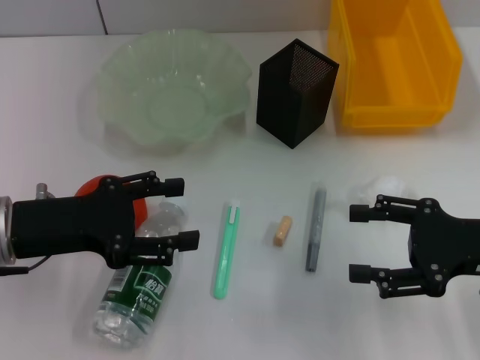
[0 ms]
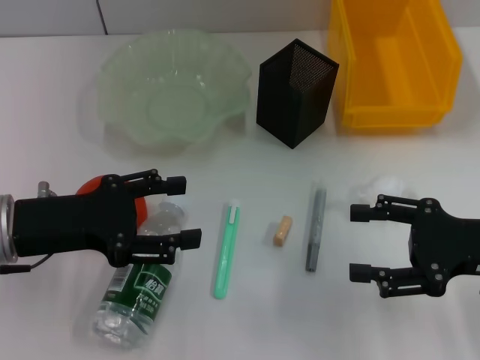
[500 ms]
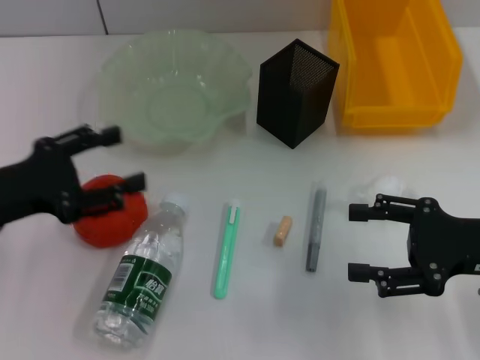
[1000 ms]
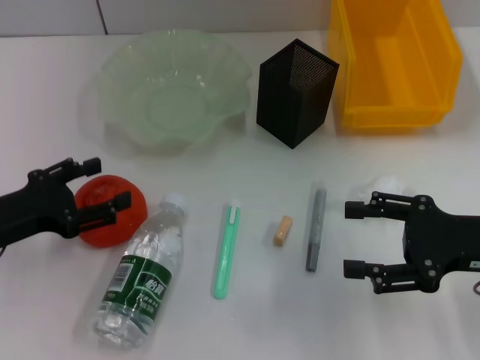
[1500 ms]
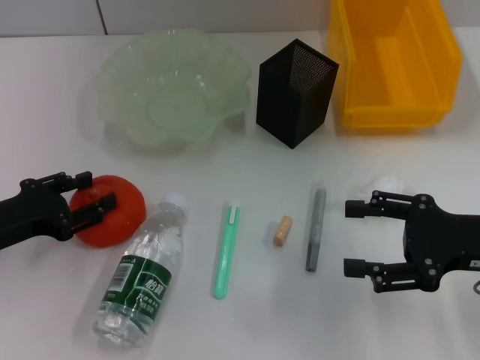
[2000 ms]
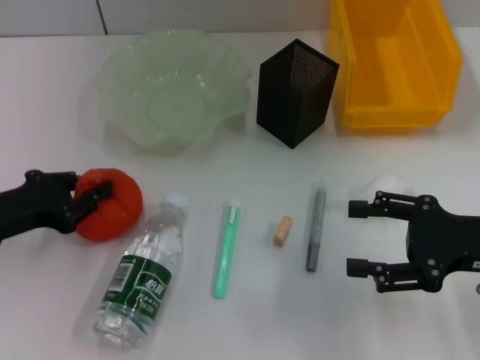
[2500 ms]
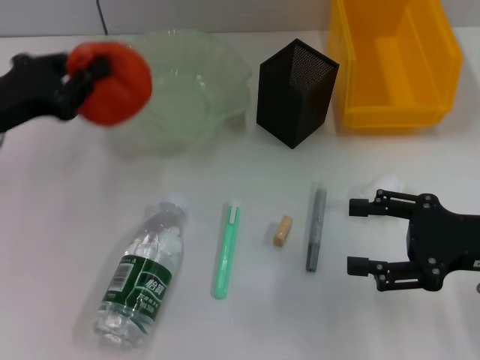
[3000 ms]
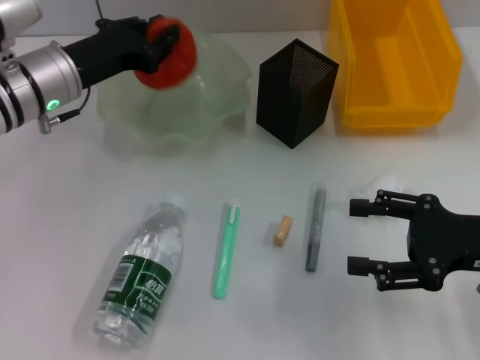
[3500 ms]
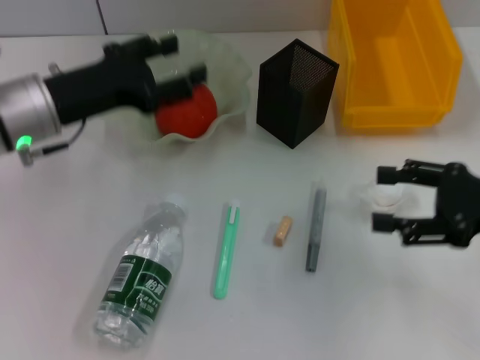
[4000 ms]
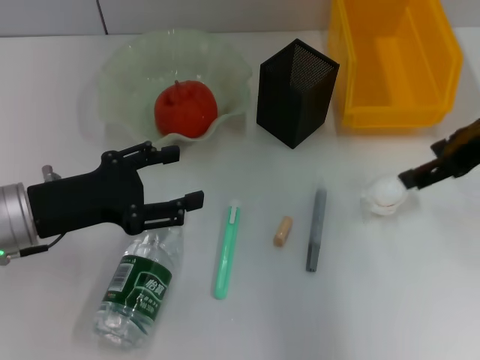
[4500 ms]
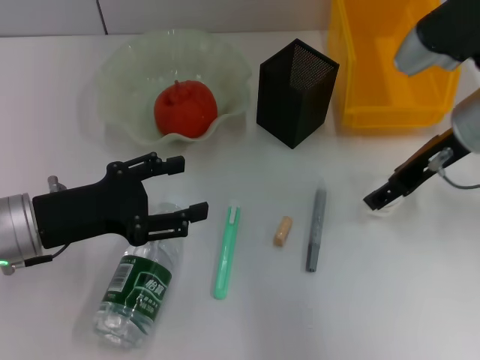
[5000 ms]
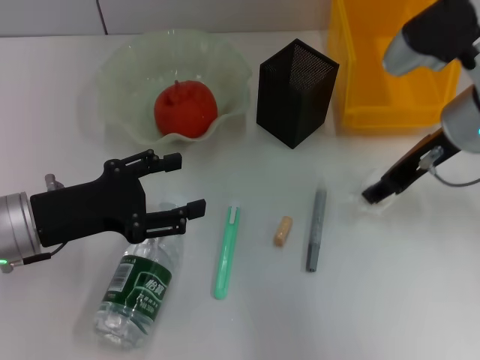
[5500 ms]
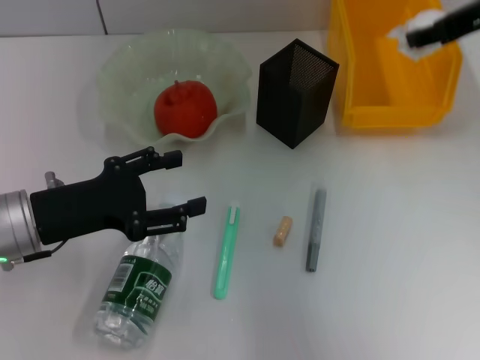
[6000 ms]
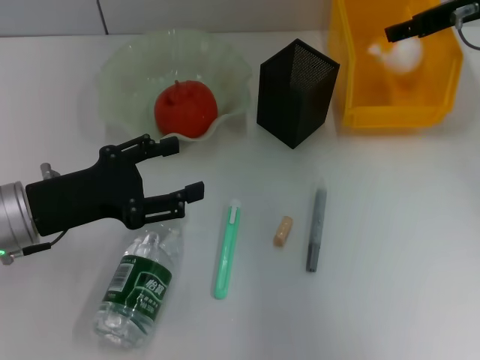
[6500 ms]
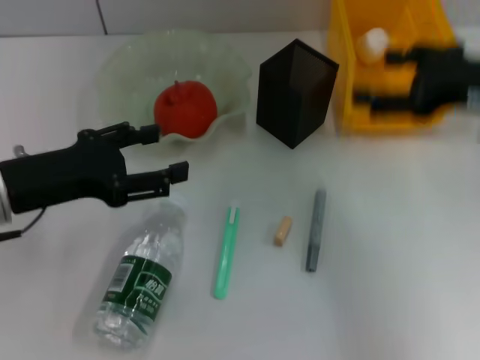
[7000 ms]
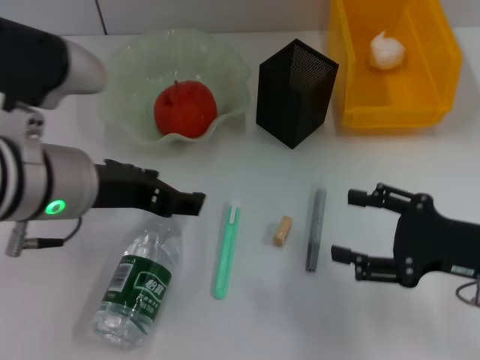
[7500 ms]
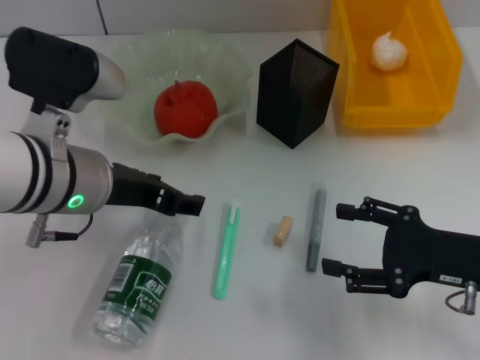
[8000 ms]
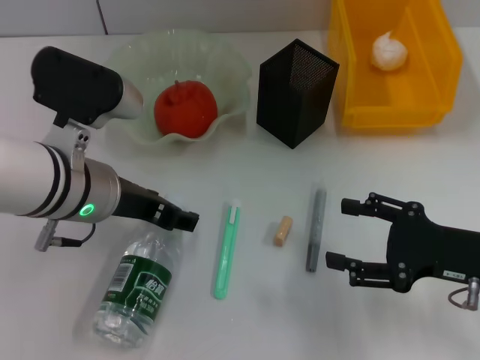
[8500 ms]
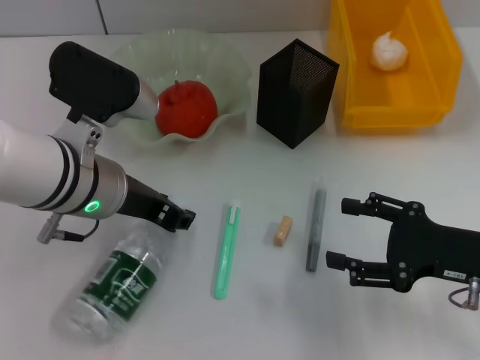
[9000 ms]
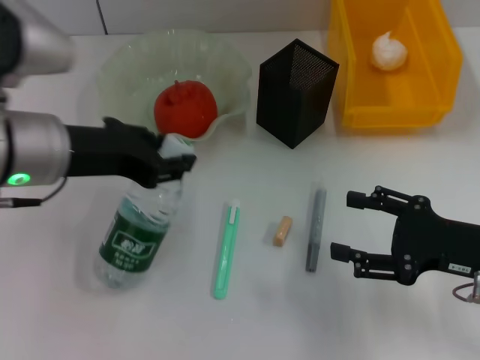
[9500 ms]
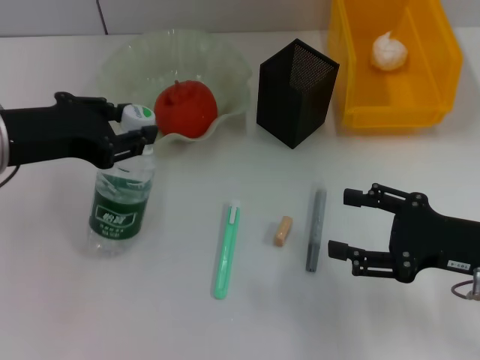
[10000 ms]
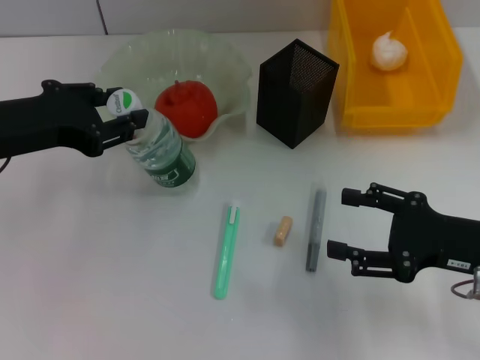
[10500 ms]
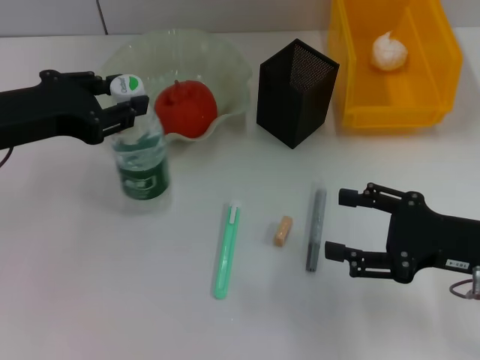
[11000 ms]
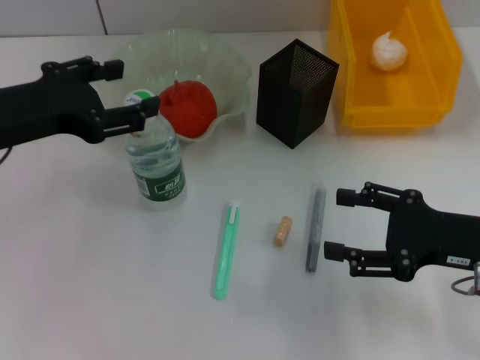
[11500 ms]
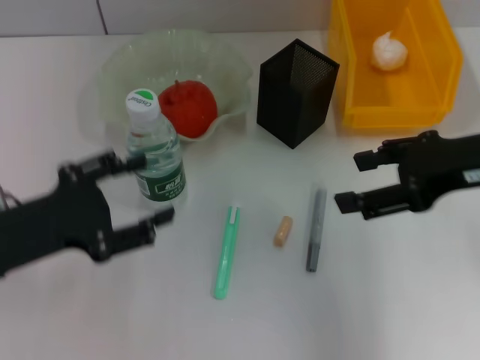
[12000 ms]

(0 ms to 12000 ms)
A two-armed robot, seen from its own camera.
Step, 0 ms - 2000 ms: Grab the orange with the left hand.
Step, 2500 ms - 3500 ms: Place the orange into the fruit bowl with the left hand.
Step, 4000 ms - 4500 ms: Grab the paper ball with the right hand.
Step, 5000 ms - 6500 ms: Place the paper ball into the trash can with the right hand.
Step, 7000 ms - 8500 ms: Grab the water bottle with the left hand.
Step, 9000 ms - 11000 ms: Place the water bottle on the table with the left hand.
0 ms - 2000 ms: The left gripper shifts about 5 cm to the left.
2000 ms - 4000 ms: The left gripper is displaced forward, to the right and upward by some 15 cm, and closes and opens again.
4000 ms - 6000 ms: The right gripper moves forward and upward, about 20 cm. The left gripper heads backward, covering about 10 cm.
6000 ms - 8000 ms: The right gripper moves downward and backward, about 25 cm, and opens. The left gripper is displaced to the right and upward by approximately 10 cm.
8000 ms - 10000 ms: The left gripper is displaced to the left by about 10 cm, and closes its fingers.
10000 ms - 12000 ms: The right gripper shifts approximately 15 cm upward. Meanwhile the left gripper travels downward and backward by about 10 cm, and opens up.

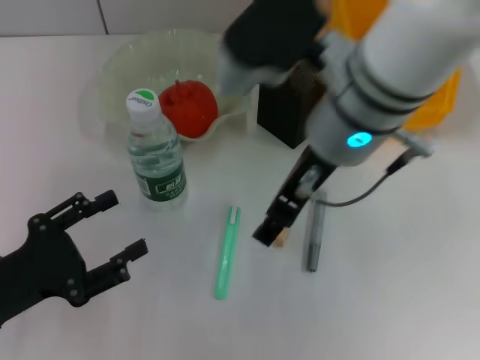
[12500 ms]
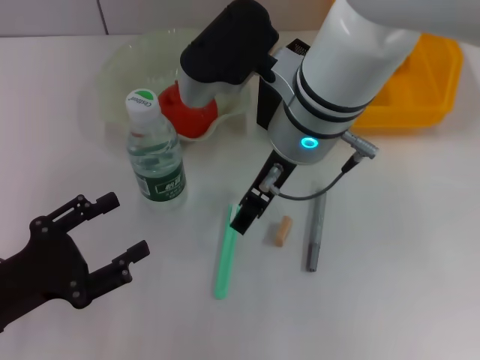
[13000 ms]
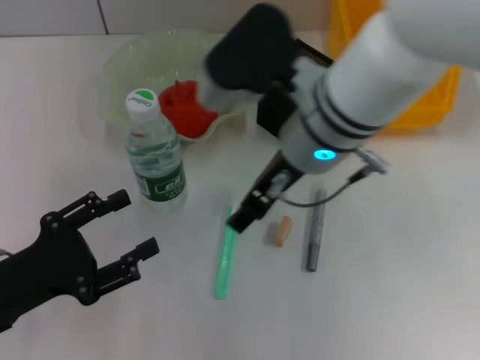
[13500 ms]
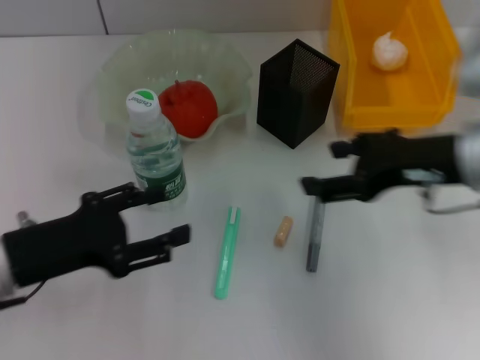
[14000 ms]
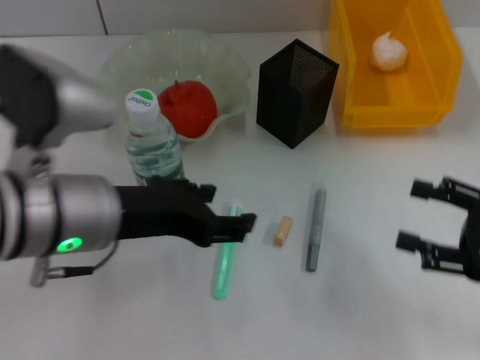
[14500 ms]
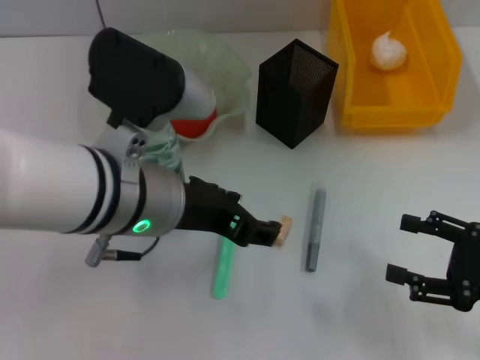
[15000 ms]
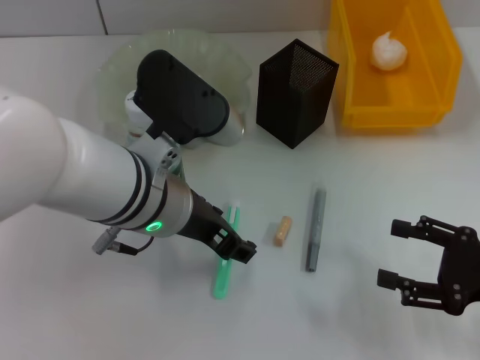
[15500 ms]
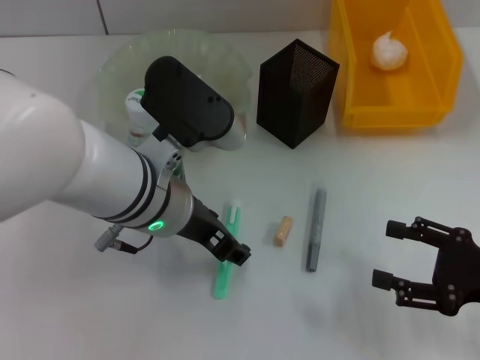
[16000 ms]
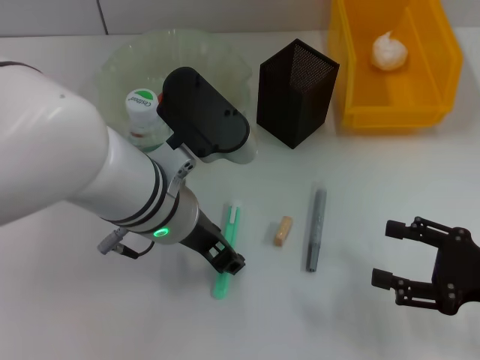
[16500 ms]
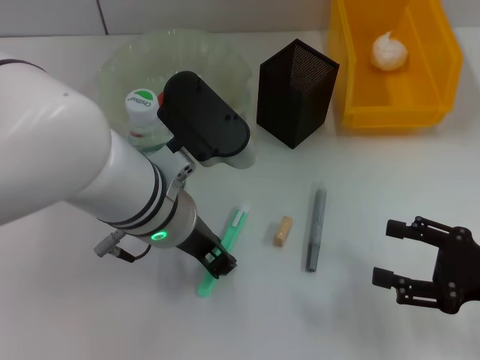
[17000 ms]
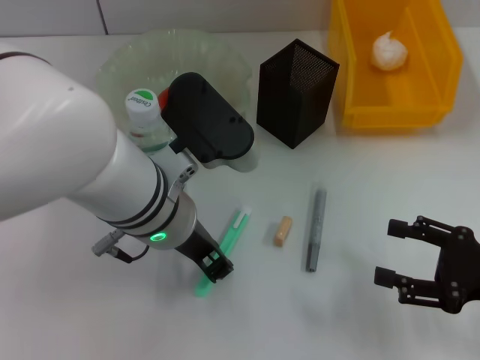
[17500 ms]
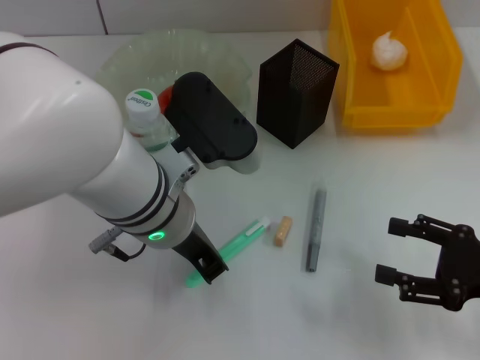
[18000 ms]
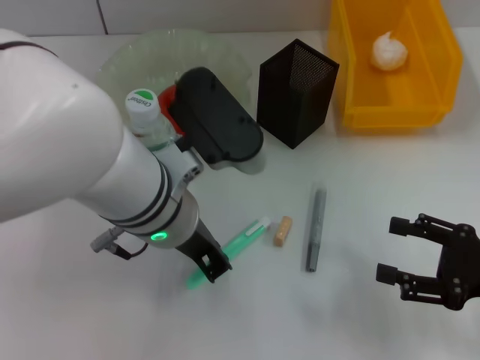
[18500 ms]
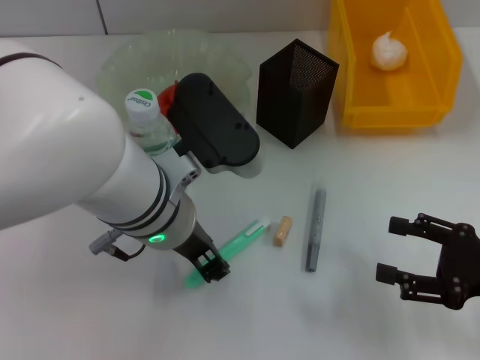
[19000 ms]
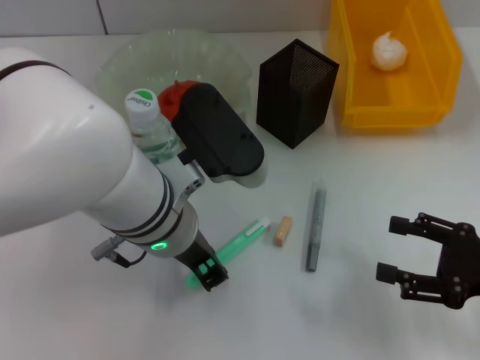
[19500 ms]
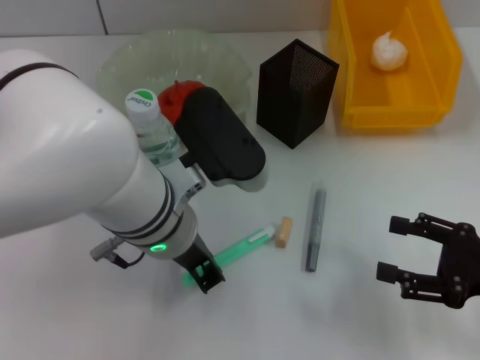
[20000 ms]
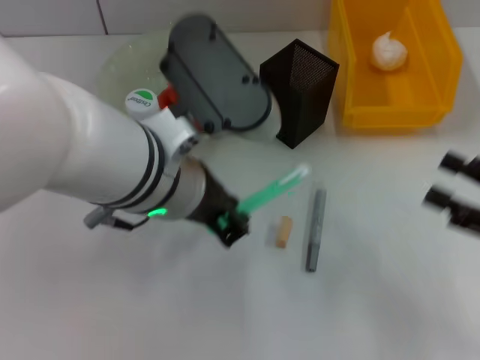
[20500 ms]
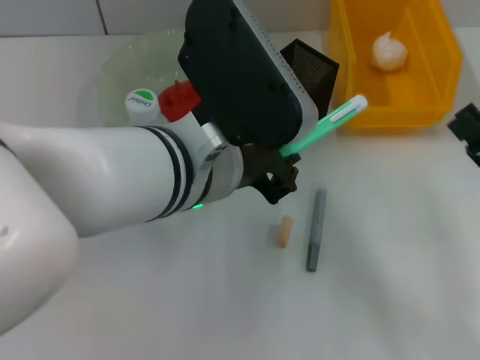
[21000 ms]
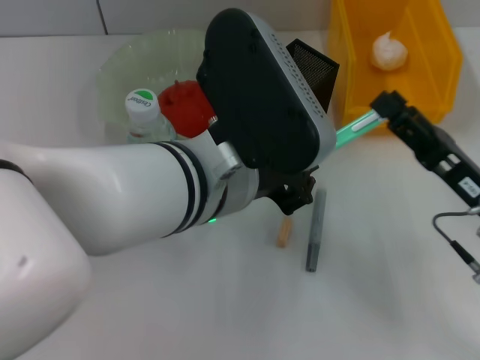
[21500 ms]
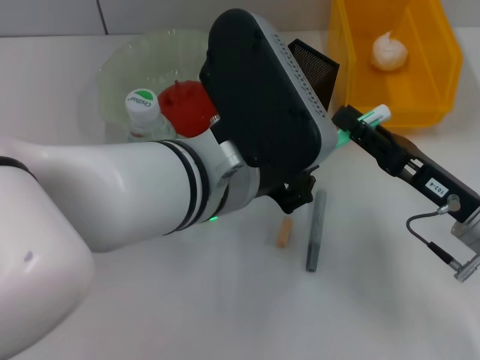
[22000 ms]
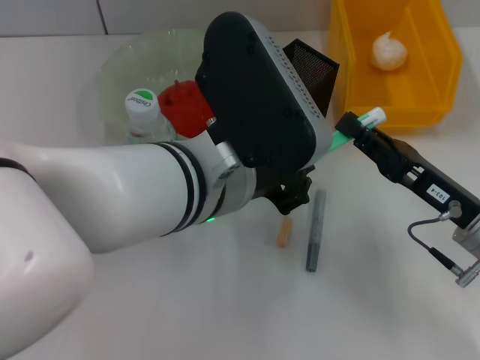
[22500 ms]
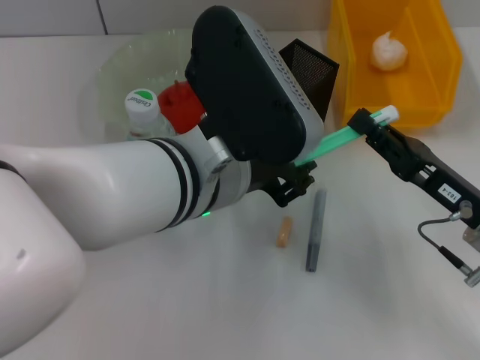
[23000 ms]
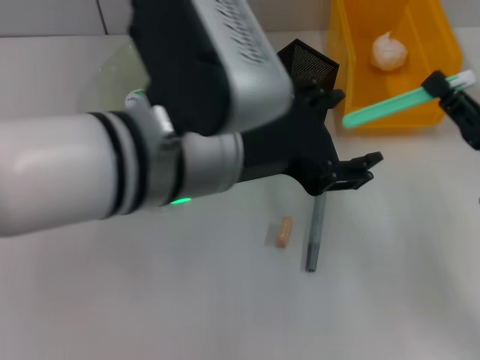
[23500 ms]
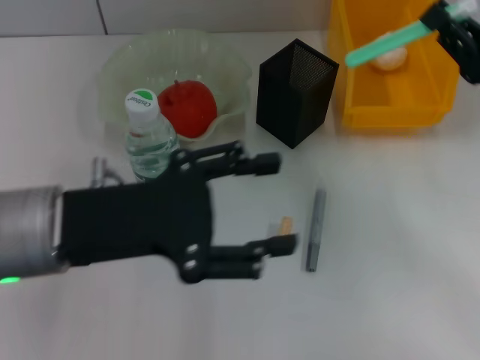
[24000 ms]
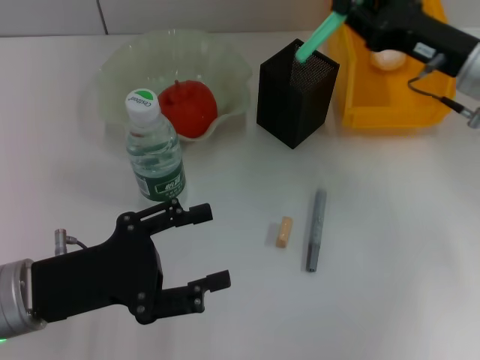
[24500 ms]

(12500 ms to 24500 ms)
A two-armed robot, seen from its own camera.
Step, 12500 ms - 16500 ms: Grab the blue utility knife with the left hand.
Step, 17000 ms - 22500 ms: Pass the blue utility knife from the left hand to the right hand.
12500 ms - 14500 ms: The right gripper is displaced to the right and downward by about 30 cm, while the left gripper moves to the right, upward and forward, approximately 20 cm.
14500 ms - 16500 ms: The left gripper goes about 5 cm to the right.
16500 ms - 18500 ms: The left gripper closes.
18500 ms - 20500 ms: The left gripper is displaced upward by approximately 5 cm.
20500 ms - 22500 ms: The right gripper shifts approximately 10 cm to the left, and closes up.
22500 ms - 24500 ms: The right gripper heads forward and upward, covering roughly 15 cm, while the left gripper moves to the left and downward, roughly 20 cm, and opens up.

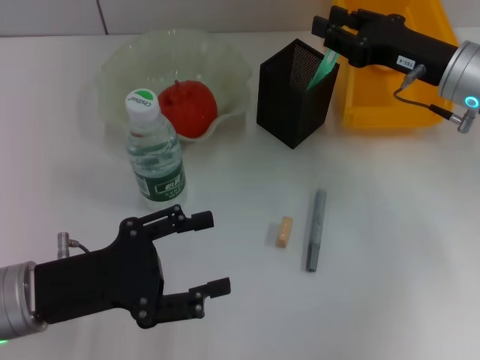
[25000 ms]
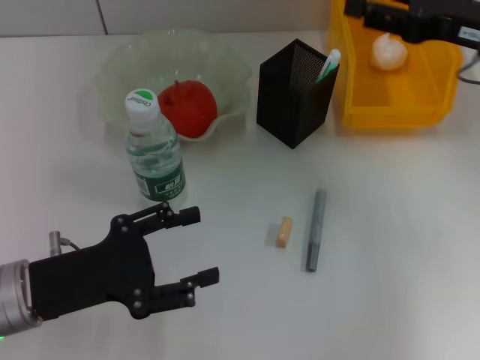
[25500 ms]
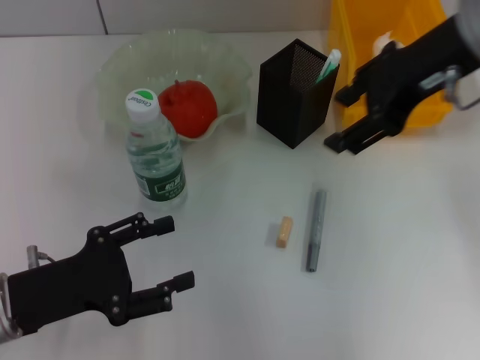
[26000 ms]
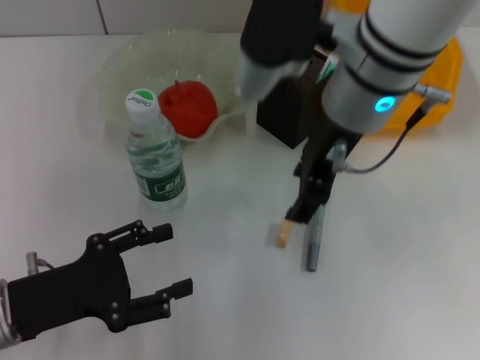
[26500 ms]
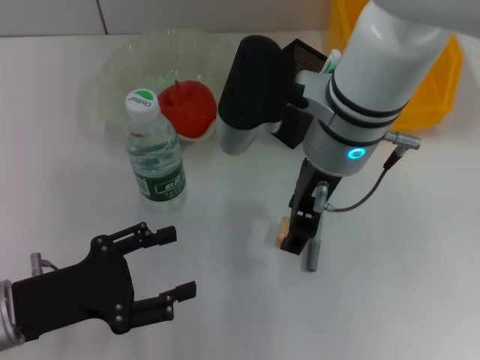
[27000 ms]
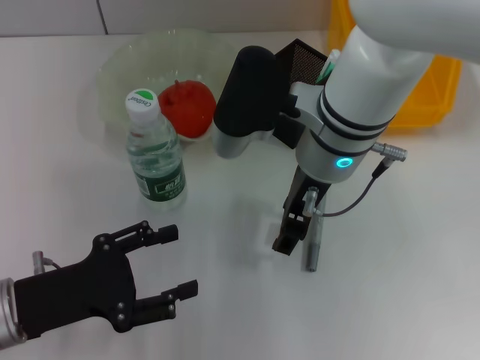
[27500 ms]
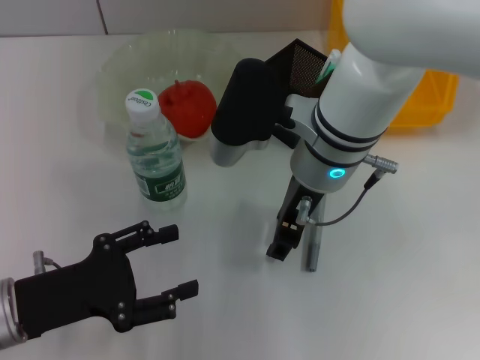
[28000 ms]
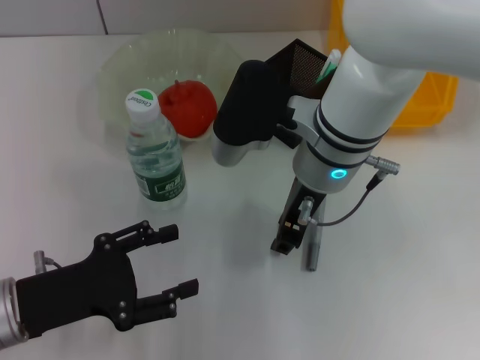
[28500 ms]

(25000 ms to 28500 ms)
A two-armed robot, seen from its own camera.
Step, 25500 ms - 28000 ms: Grab the eraser with the right hand.
25000 ms - 27000 ms: The right gripper heads to the left, covering roughly 15 cm, and opens up.
27000 ms - 28500 ms: The right gripper closes.
